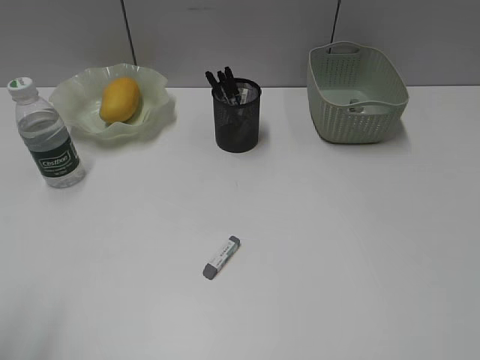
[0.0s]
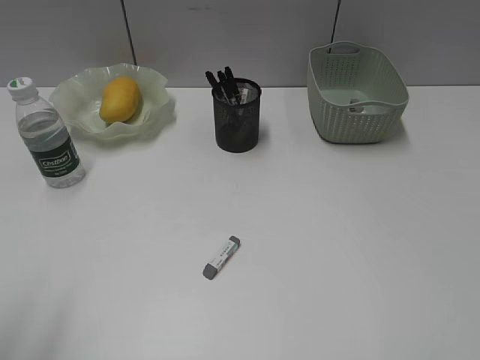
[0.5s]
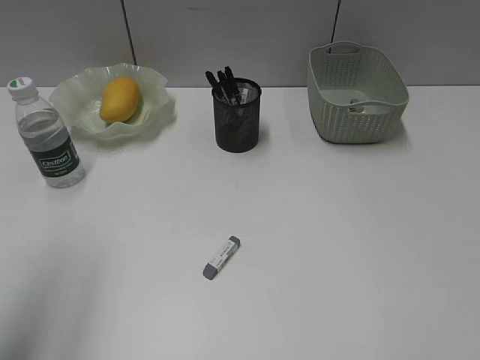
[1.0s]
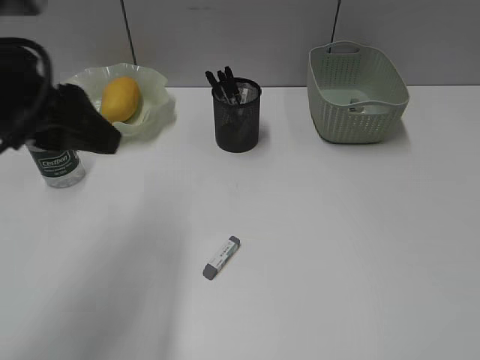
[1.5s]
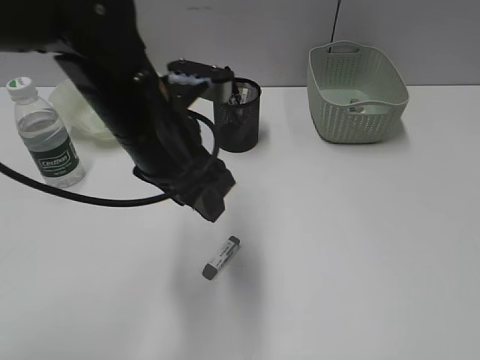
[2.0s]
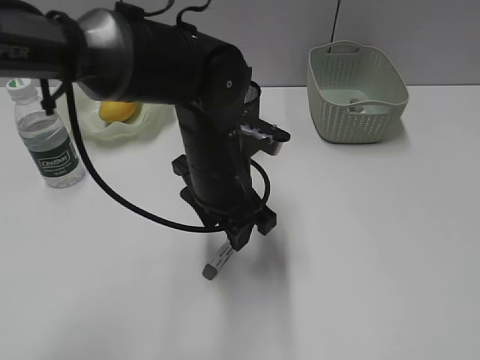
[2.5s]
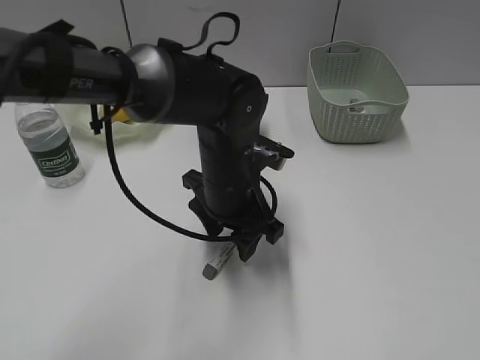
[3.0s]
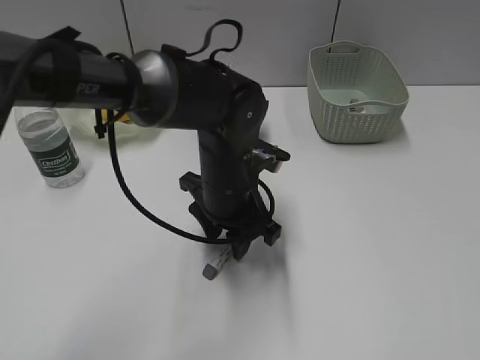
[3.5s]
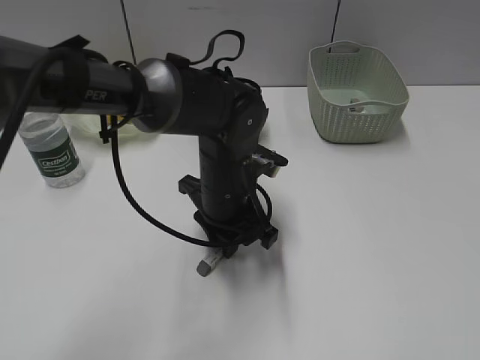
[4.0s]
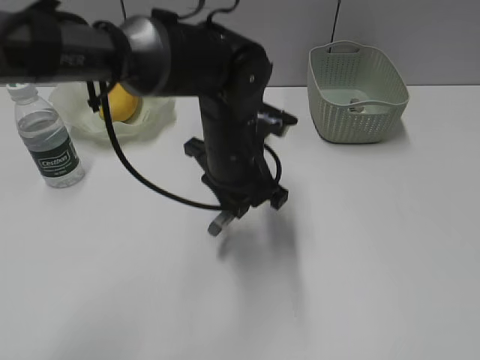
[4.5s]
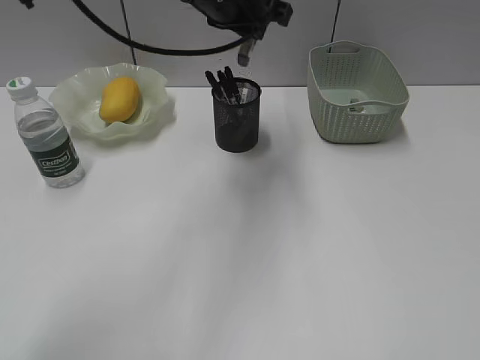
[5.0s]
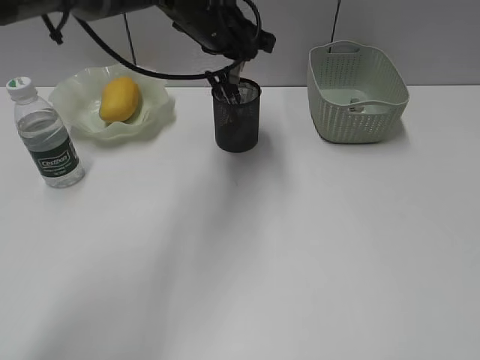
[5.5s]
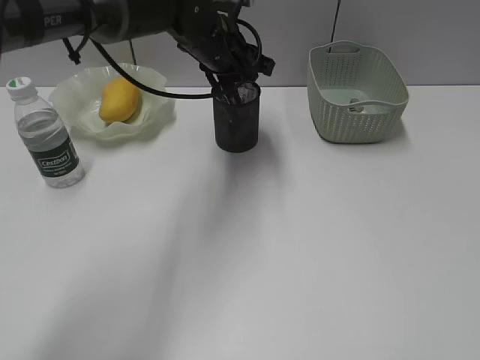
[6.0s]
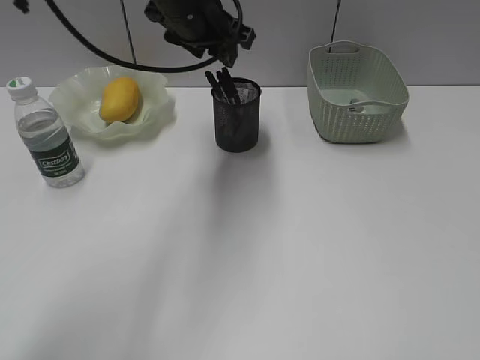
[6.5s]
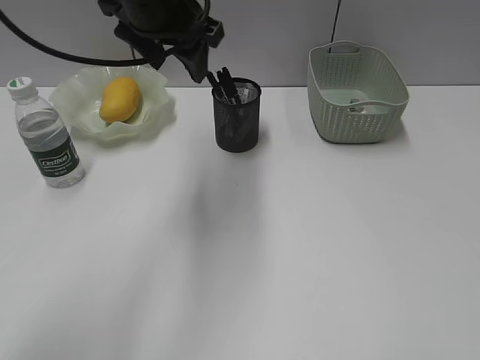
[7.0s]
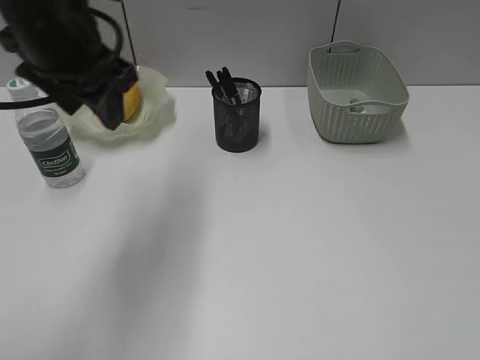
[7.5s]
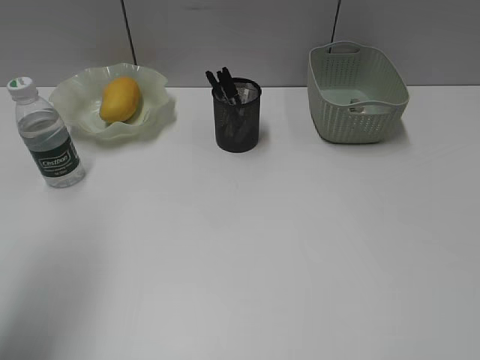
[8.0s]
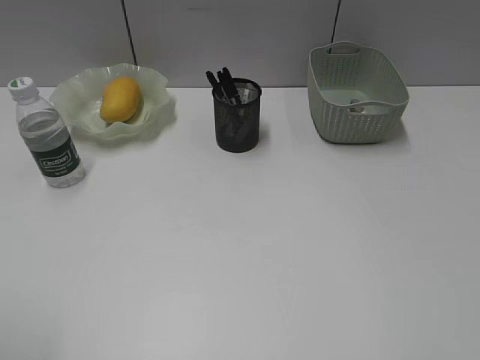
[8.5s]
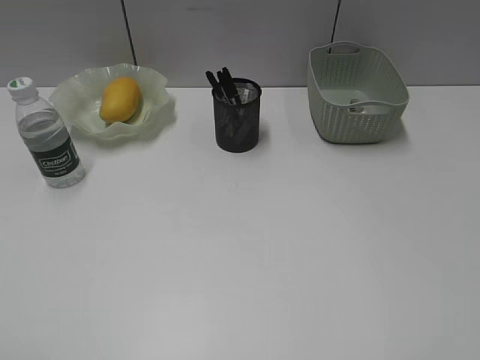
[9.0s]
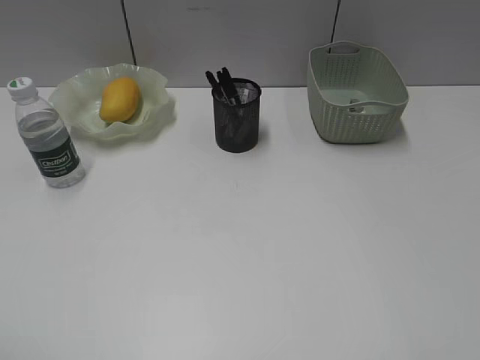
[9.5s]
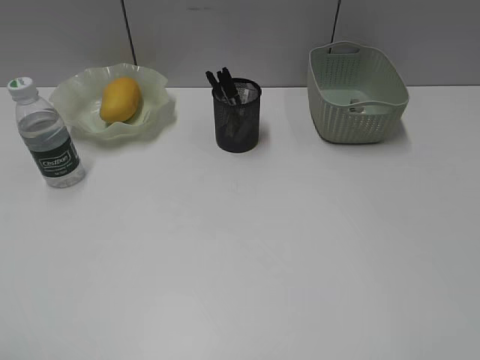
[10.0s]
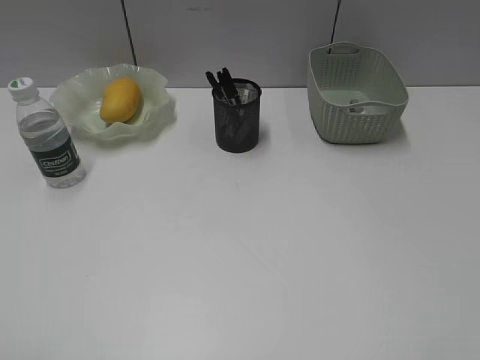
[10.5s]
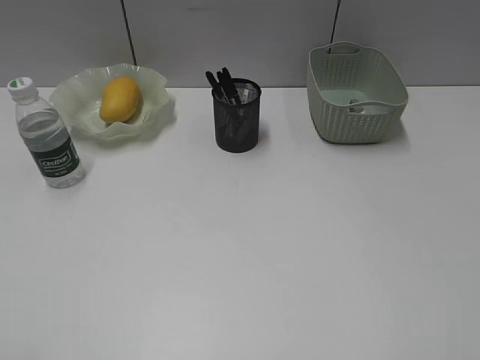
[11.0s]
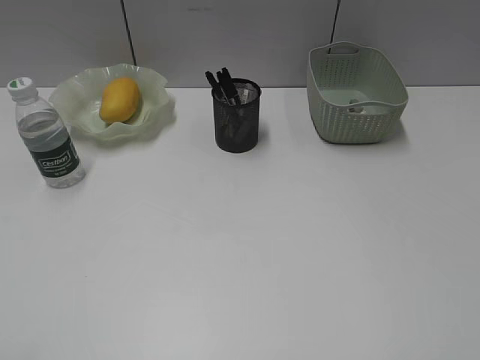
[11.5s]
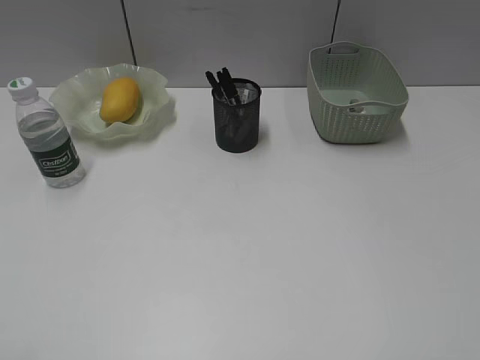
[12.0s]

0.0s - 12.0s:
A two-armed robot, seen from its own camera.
Step, 0.0s - 4.0s: Grasp the eraser with left gripper.
Step, 4.5s - 6.0s: Place the eraser in pen holder with left gripper.
0.0s - 2.0s: The left gripper moves to the right and forward, about 30 cm.
2.0s - 4.0s: The left gripper shifts about 15 cm downward and to the right, and closes its fingers.
4.0s - 6.0s: The left gripper travels forward and upward by about 20 cm.
6.0s - 8.0s: The left gripper shifts roughly 35 cm backward and to the left.
8.0s - 10.0s: The left gripper travels backward by some 20 cm.

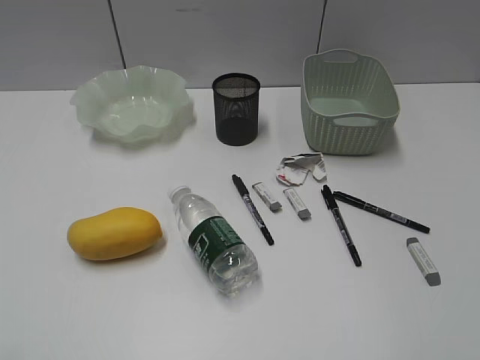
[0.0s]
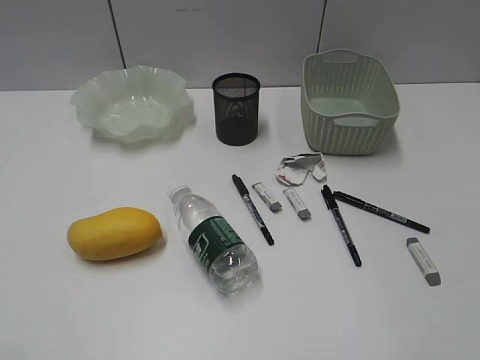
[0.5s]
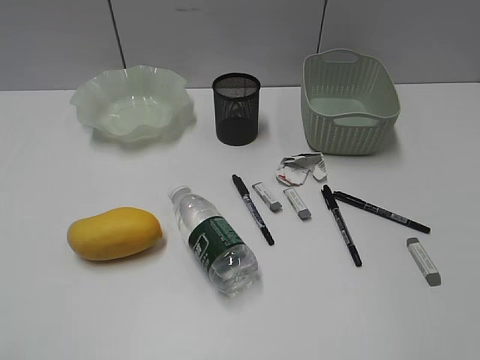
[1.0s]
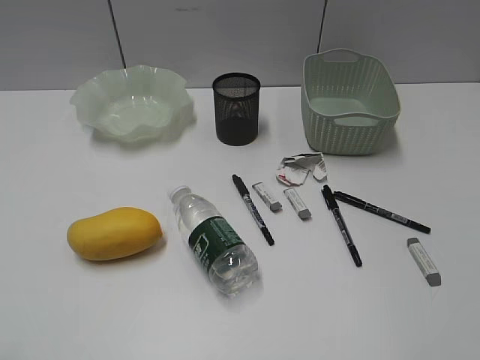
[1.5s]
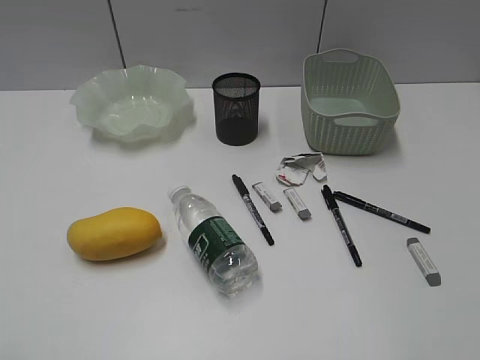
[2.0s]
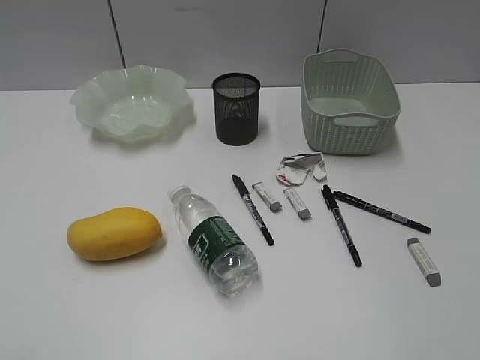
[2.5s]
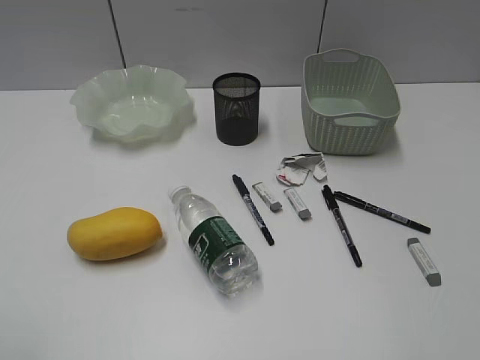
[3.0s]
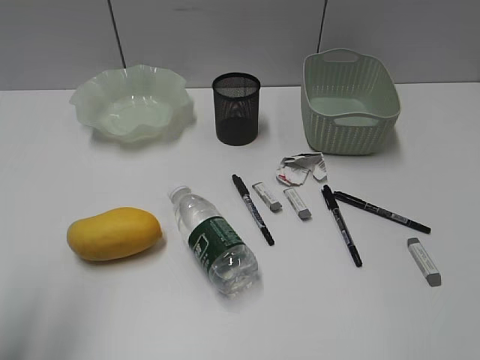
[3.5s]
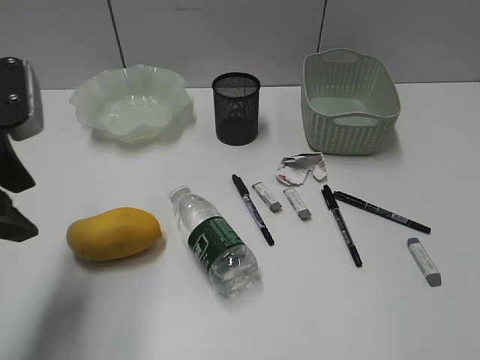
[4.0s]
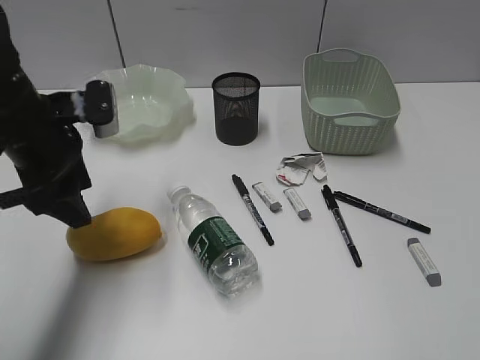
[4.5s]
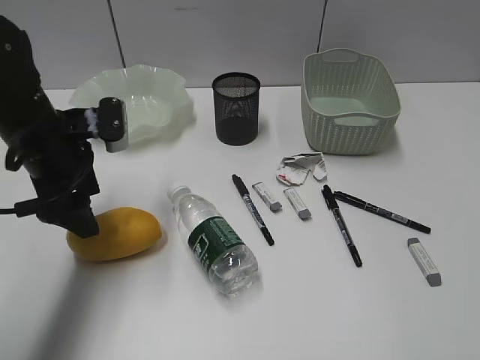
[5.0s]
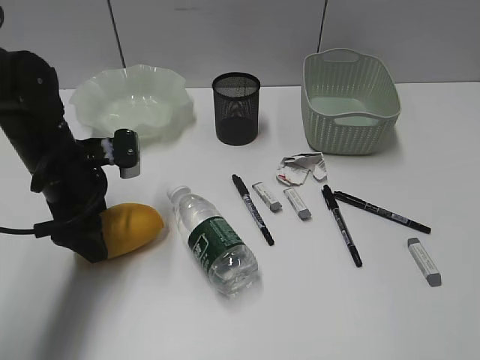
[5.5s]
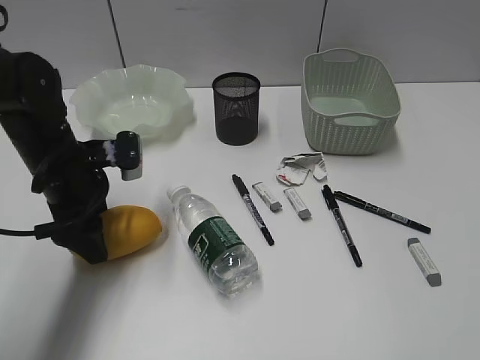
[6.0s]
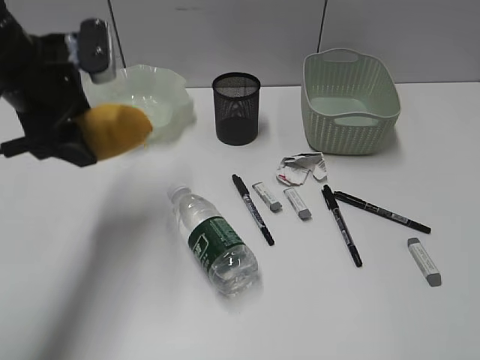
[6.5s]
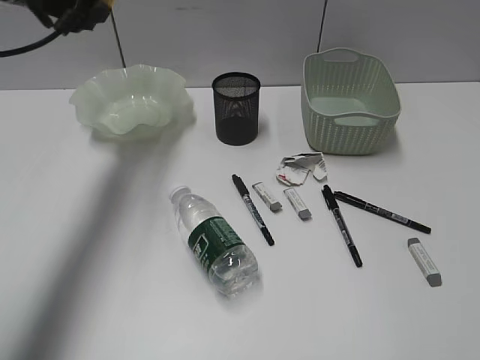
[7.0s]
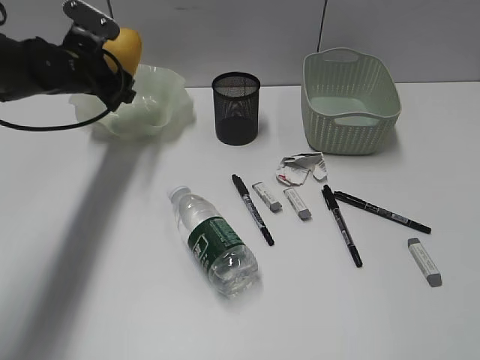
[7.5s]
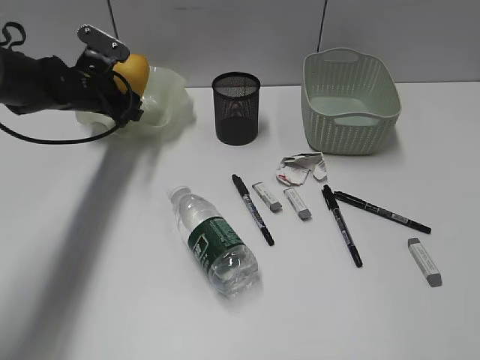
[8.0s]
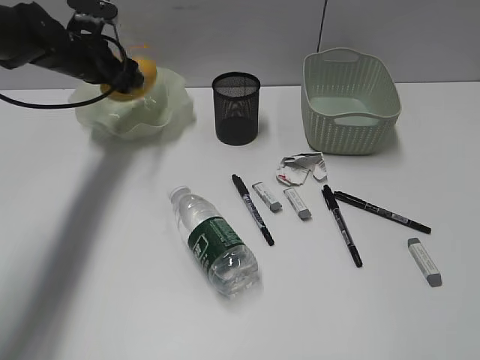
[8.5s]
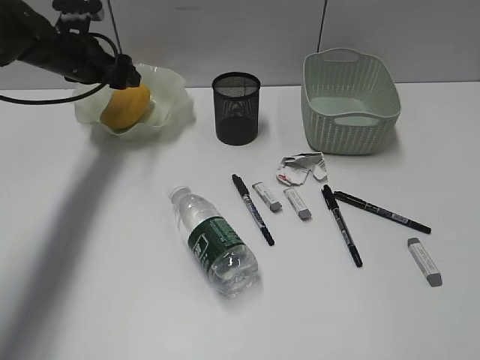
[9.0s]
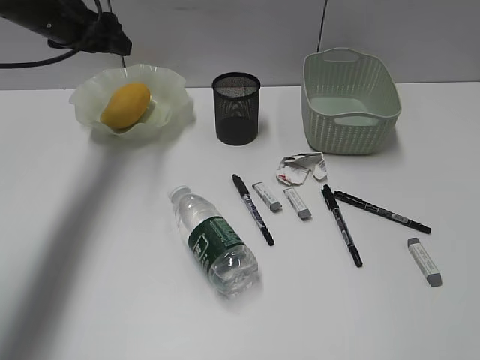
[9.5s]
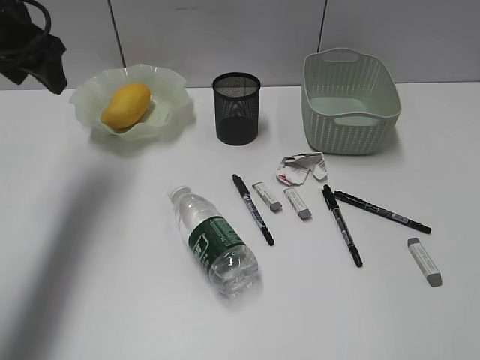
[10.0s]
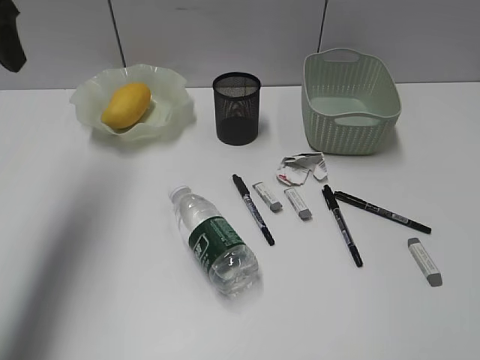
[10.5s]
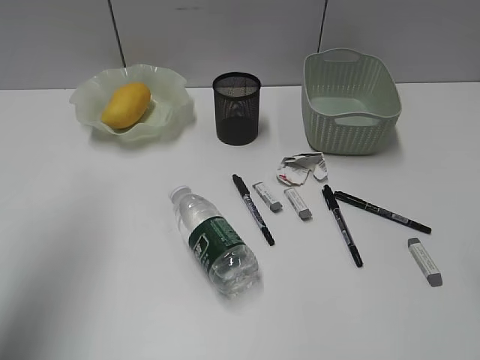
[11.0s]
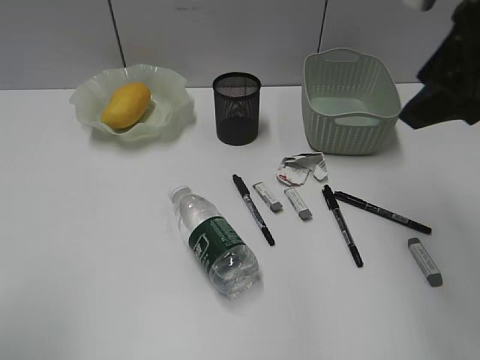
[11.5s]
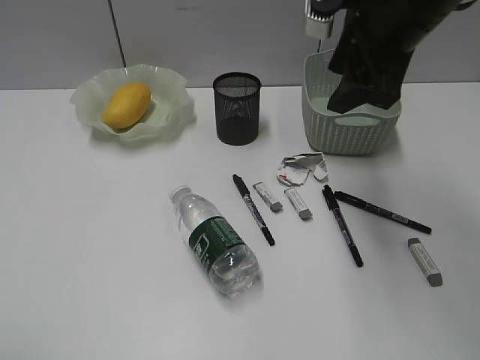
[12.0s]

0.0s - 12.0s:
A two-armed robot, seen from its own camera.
Step, 4.0s - 5.5s: Grasp the mango with left gripper.
Step, 6.0s - 9.0s: Place the mango in the plate with left gripper.
2.0s - 4.0s: The left gripper goes some 25 cm forward, and opens.
4.0s - 6.0s: The left gripper travels downward and forward by some 15 cm.
6.0s - 8.0s: The left gripper goes roughly 15 cm forward, and reaches about 15 cm upward, then returns.
8.0s - 10.0s: The left gripper shifts roughly 15 cm upward and backward.
10.0s - 12.0s: The right gripper goes about 40 cm forward and to the left, while the left gripper moves backward, roughly 40 cm.

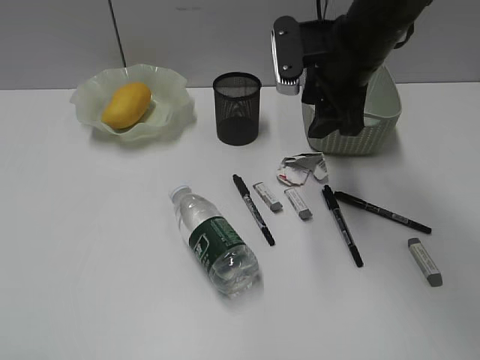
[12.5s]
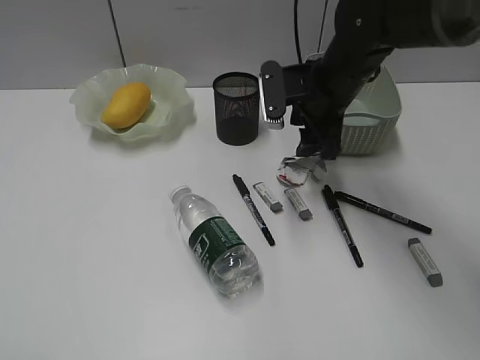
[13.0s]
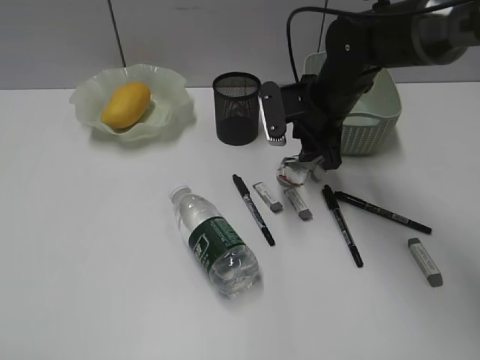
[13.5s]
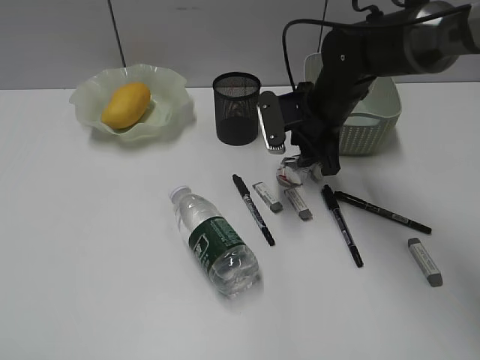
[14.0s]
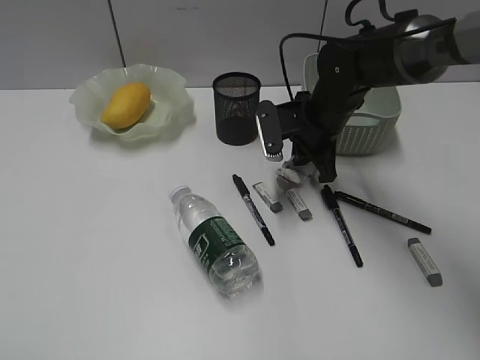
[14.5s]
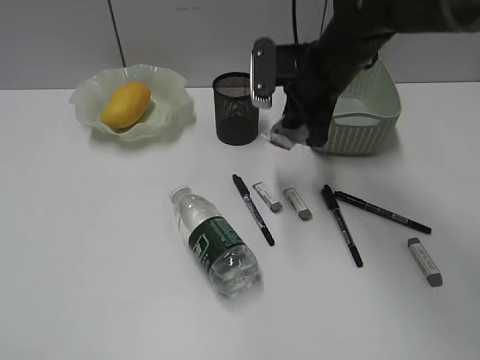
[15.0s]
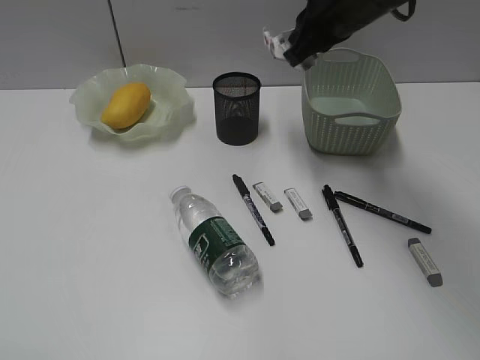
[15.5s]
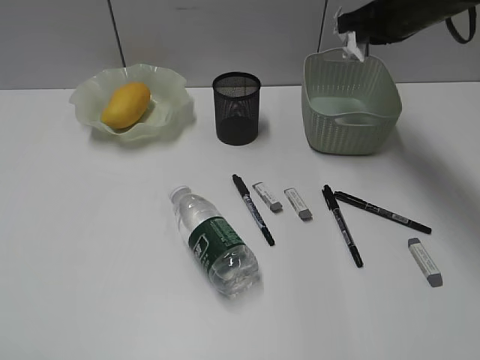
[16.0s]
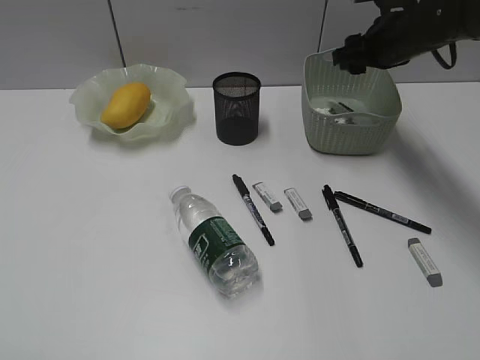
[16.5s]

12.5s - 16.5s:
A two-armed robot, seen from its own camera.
Step, 12.5s - 14.5s: Grasp the waste paper with right gripper.
12.5s - 14.5s: The right gripper moves downward, about 10 cm, and closes.
14.5s - 16.5s: The right gripper moves to the right, upward and forward, roughly 15 cm, and opens up.
